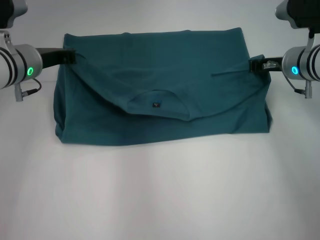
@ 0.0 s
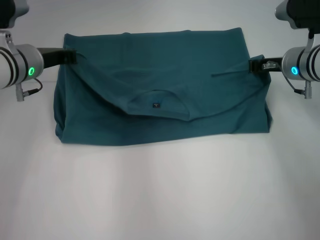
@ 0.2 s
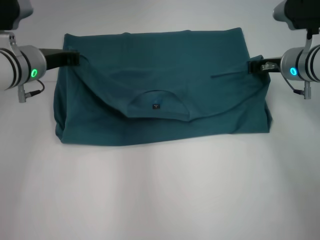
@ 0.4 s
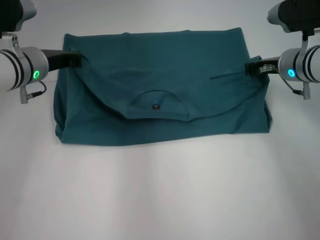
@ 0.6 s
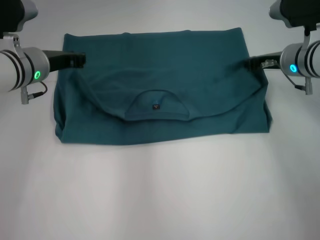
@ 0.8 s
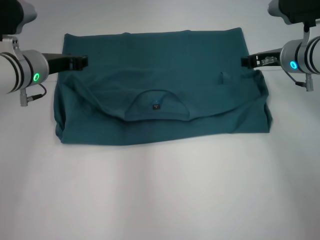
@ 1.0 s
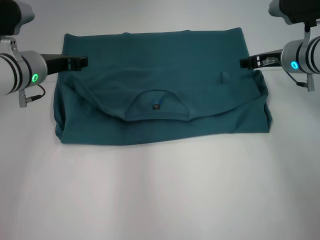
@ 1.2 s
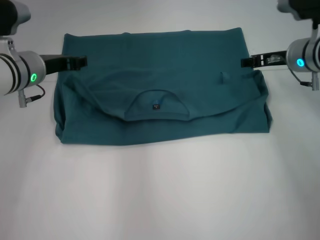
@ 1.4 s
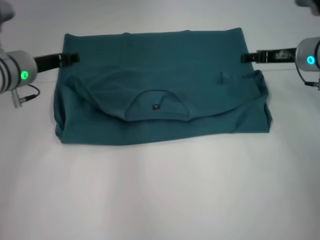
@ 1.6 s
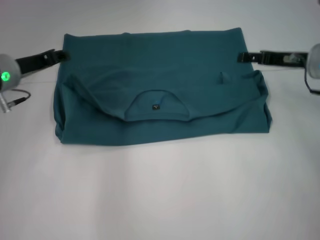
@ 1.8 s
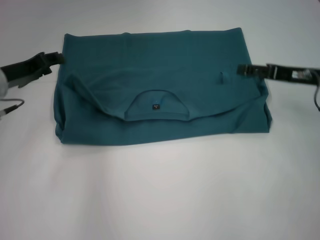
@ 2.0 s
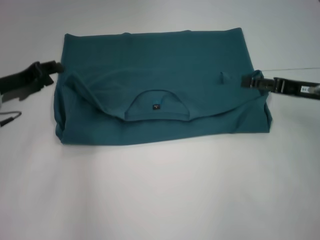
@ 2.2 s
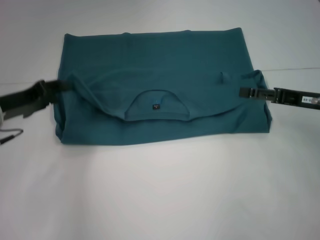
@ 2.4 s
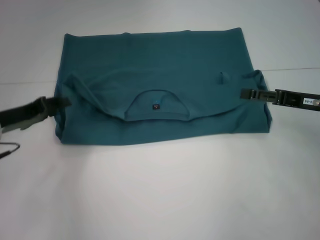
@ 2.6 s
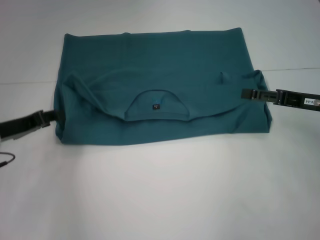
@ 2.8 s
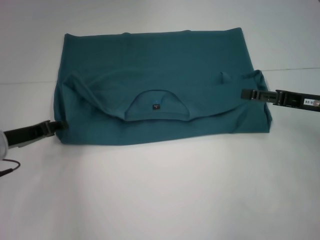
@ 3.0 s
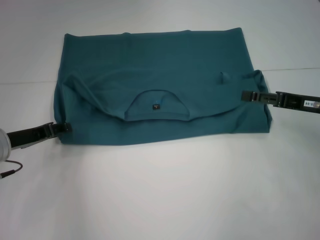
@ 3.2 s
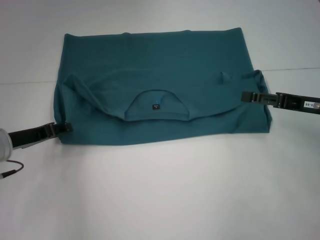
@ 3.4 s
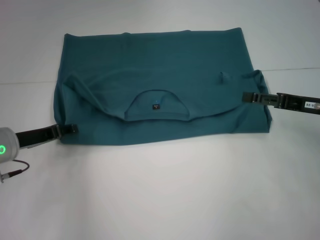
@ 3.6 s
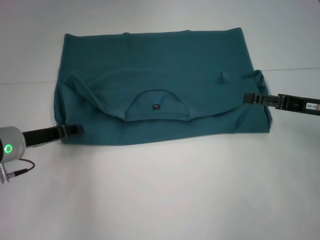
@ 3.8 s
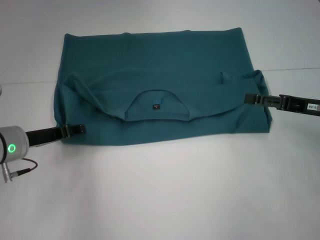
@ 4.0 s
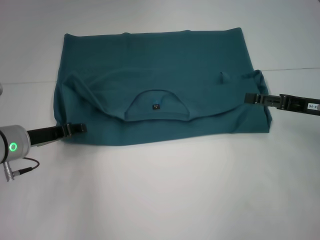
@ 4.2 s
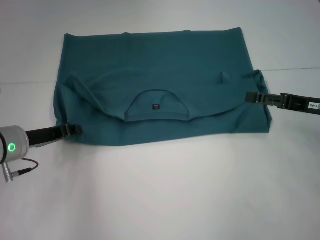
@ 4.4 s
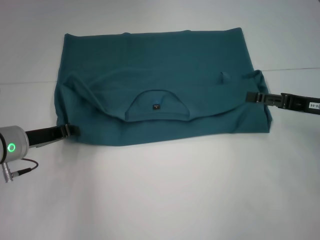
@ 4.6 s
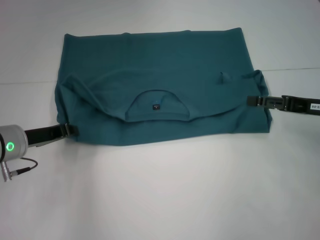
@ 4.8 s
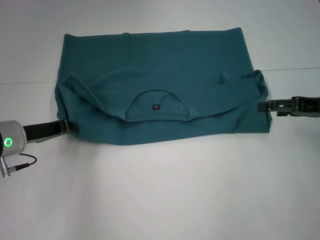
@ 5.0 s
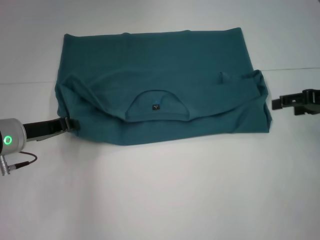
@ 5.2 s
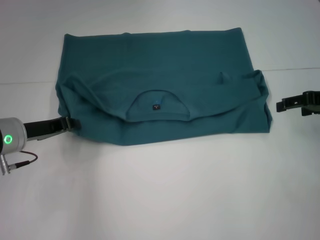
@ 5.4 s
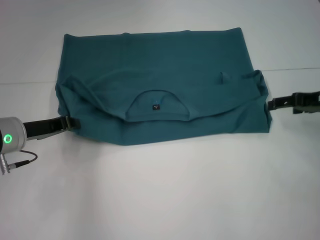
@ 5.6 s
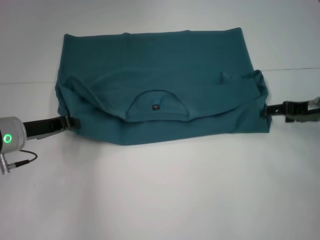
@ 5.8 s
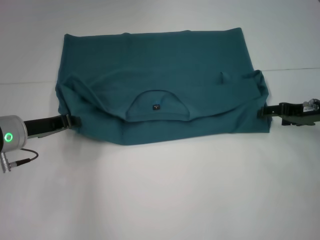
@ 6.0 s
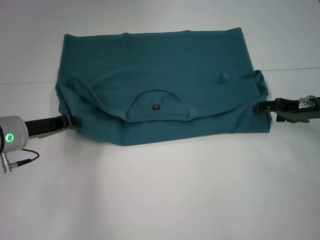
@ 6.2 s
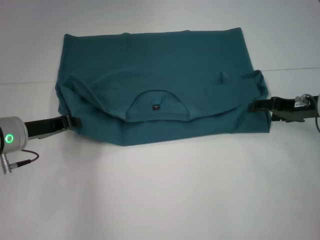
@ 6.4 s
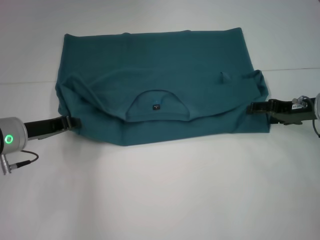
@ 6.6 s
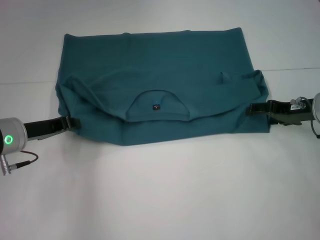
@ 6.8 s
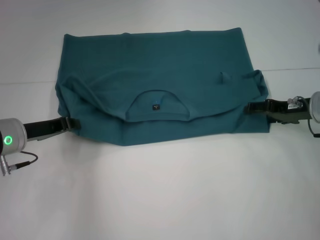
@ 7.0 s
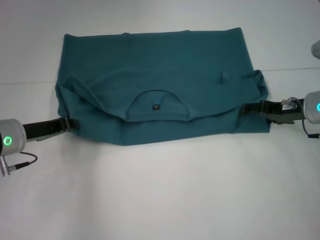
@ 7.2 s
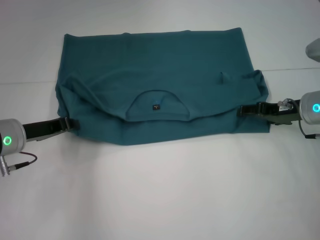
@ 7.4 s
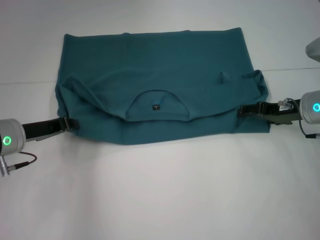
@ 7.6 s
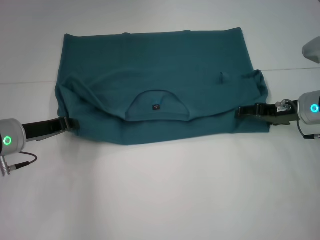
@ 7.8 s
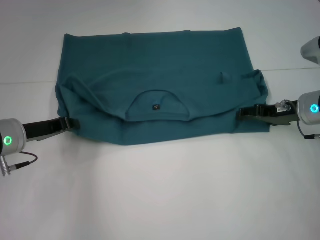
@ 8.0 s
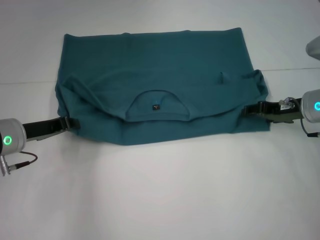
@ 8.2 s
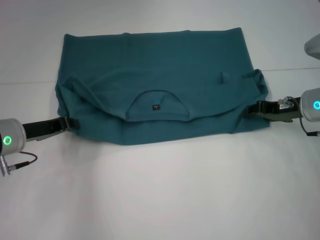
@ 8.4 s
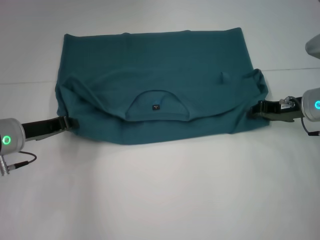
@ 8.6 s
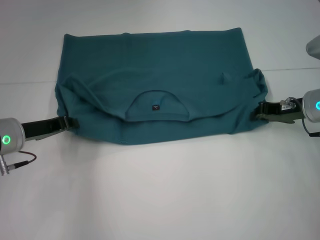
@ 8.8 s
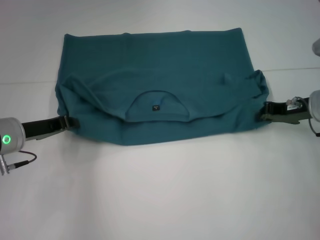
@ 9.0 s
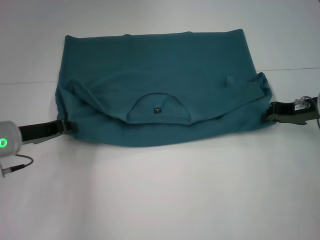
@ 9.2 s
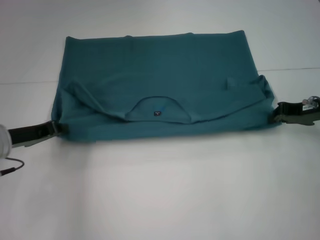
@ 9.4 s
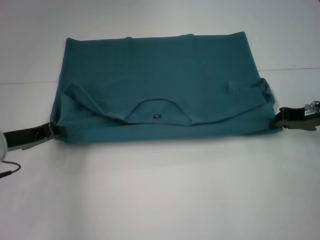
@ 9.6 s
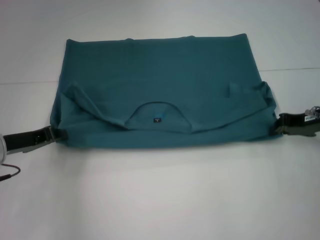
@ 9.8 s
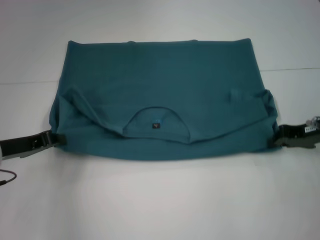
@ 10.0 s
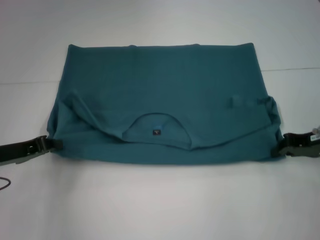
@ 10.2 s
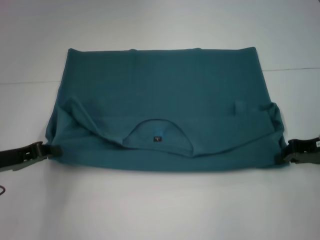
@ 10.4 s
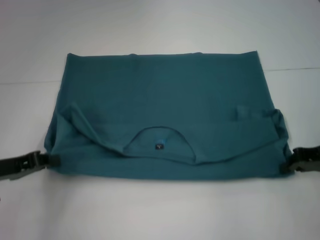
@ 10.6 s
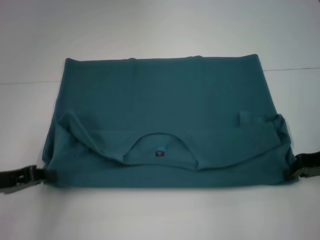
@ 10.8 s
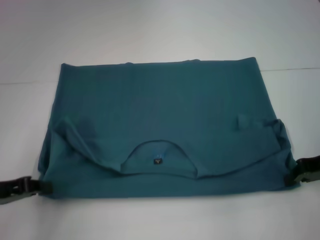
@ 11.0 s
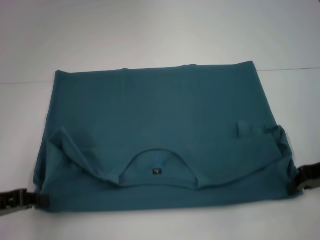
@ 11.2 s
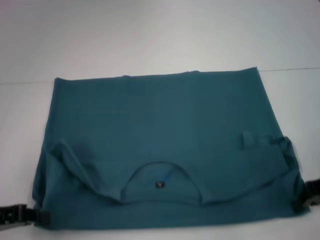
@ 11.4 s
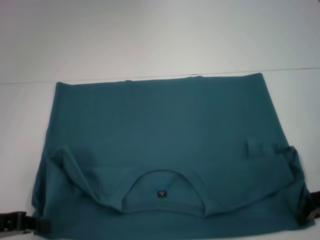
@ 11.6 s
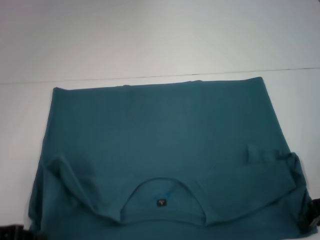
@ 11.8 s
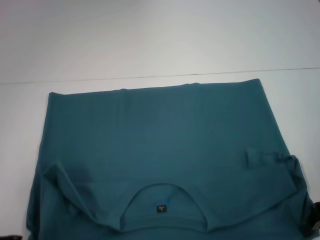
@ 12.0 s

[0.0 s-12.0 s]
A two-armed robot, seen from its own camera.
0.0 to 1.6 s: The right gripper opens up, while the left gripper opens up.
1.6 to 3.0 s: The right gripper is displaced backward by some 10 cm, while the left gripper shifts roughly 15 cm backward, downward and to the left.
3.0 to 4.4 s: The grippers move only a little.
4.4 to 6.0 s: The left gripper closes.
6.0 to 7.6 s: There are only small adjustments of the grippers.
7.6 to 9.0 s: The right gripper closes its fingers.
9.0 to 10.4 s: Both grippers travel together backward, approximately 5 cm.
10.4 to 12.0 s: The left gripper heads backward, covering roughly 10 cm.

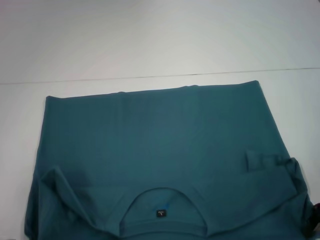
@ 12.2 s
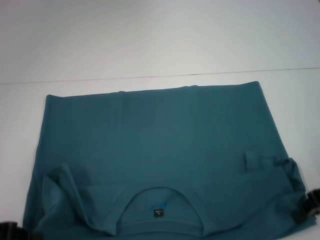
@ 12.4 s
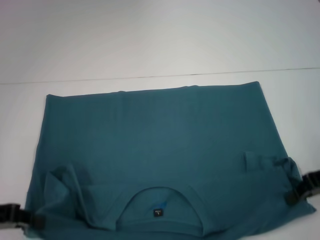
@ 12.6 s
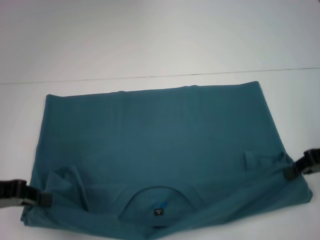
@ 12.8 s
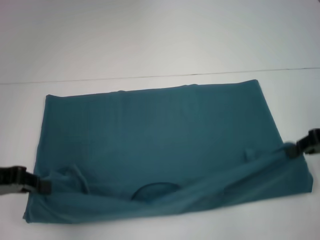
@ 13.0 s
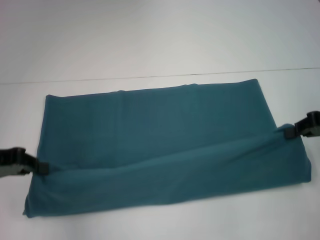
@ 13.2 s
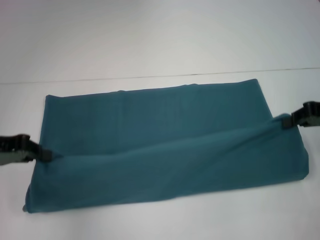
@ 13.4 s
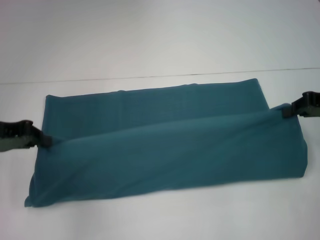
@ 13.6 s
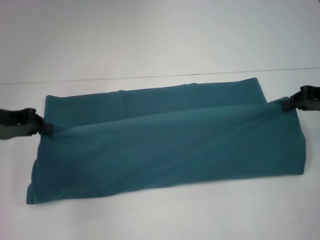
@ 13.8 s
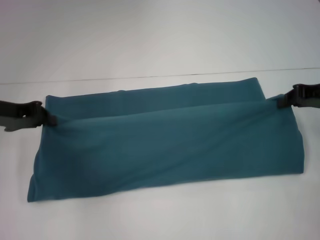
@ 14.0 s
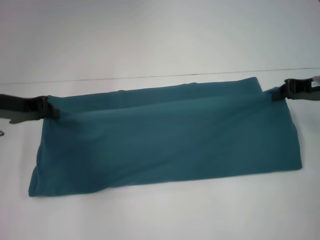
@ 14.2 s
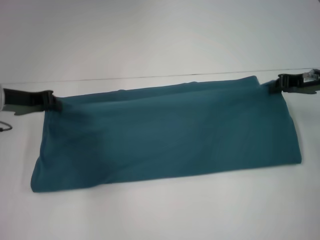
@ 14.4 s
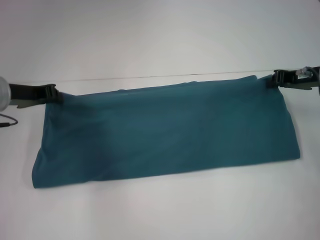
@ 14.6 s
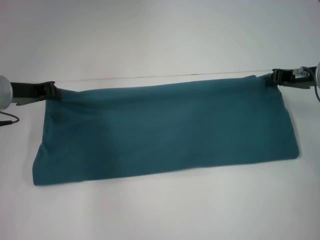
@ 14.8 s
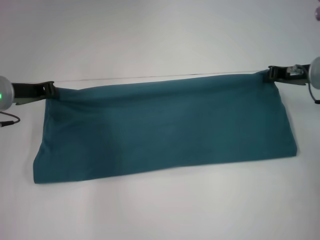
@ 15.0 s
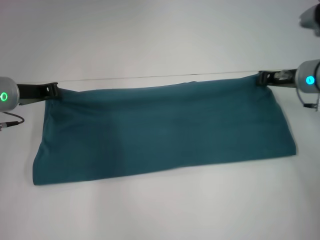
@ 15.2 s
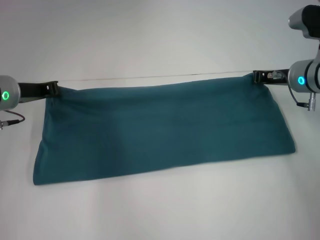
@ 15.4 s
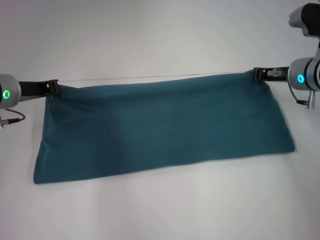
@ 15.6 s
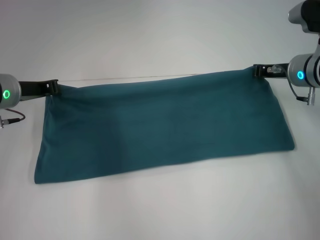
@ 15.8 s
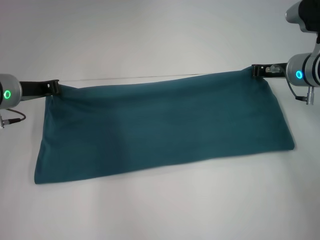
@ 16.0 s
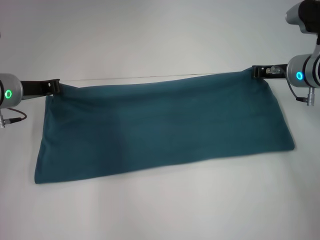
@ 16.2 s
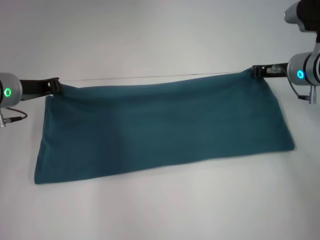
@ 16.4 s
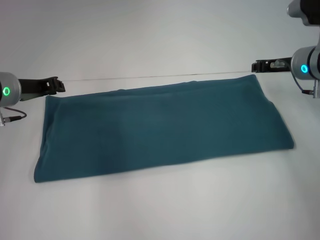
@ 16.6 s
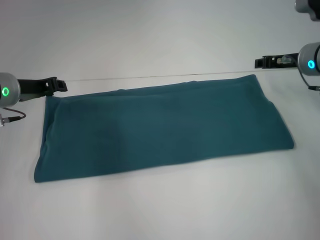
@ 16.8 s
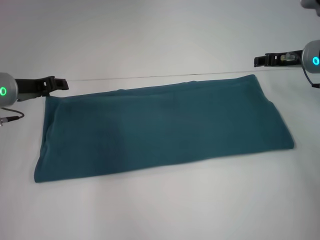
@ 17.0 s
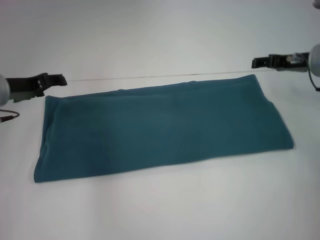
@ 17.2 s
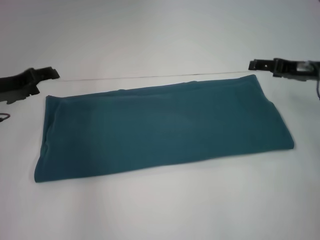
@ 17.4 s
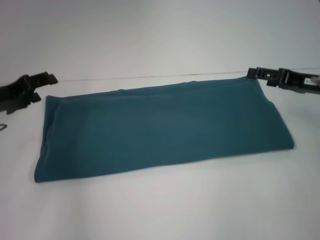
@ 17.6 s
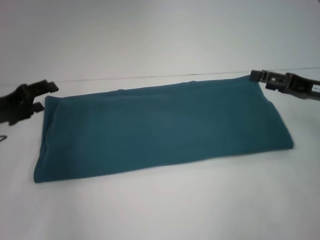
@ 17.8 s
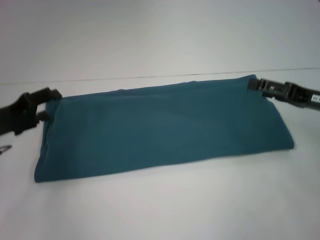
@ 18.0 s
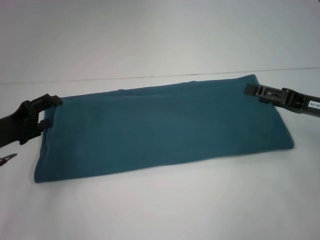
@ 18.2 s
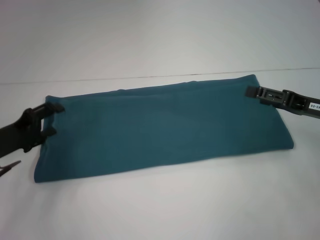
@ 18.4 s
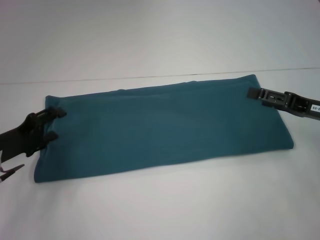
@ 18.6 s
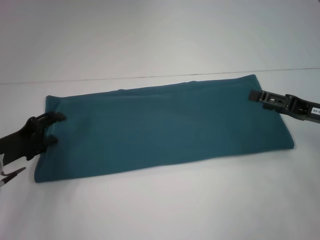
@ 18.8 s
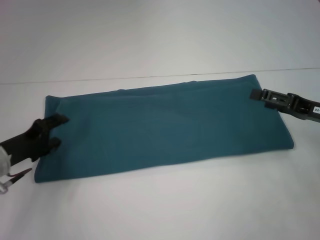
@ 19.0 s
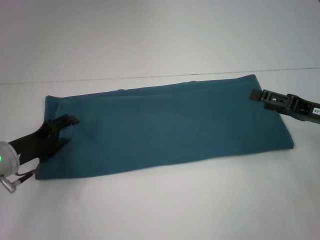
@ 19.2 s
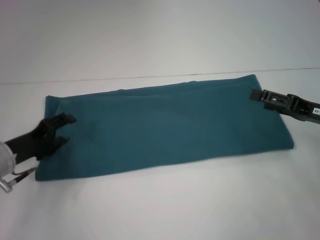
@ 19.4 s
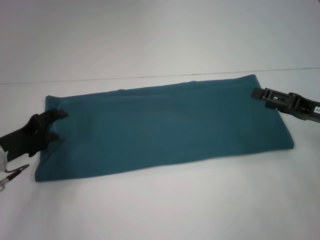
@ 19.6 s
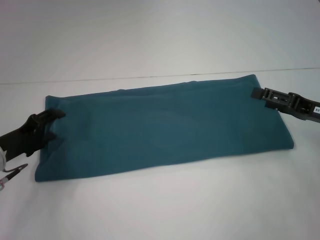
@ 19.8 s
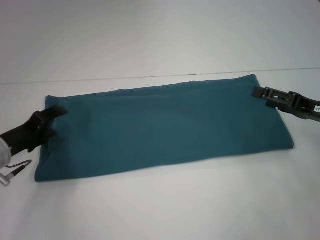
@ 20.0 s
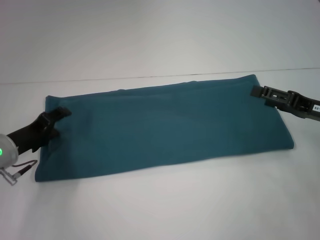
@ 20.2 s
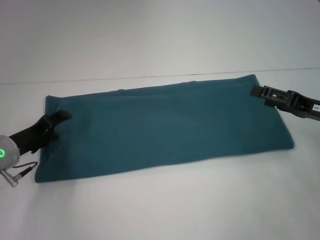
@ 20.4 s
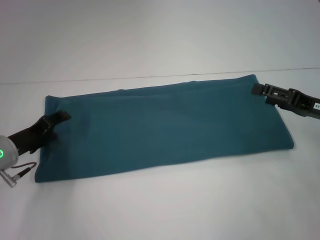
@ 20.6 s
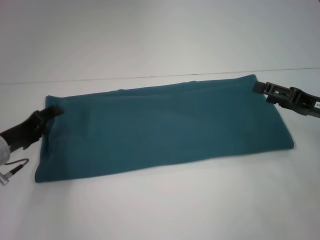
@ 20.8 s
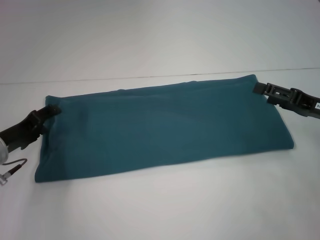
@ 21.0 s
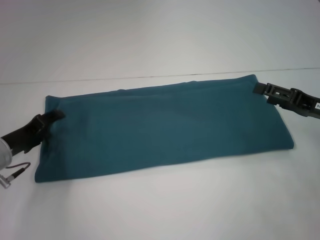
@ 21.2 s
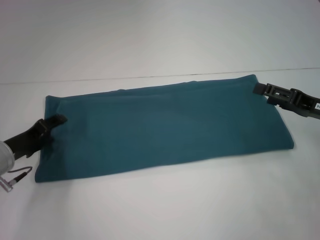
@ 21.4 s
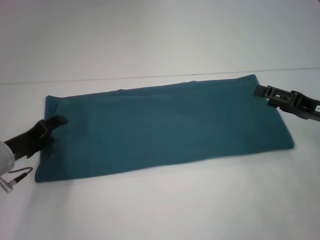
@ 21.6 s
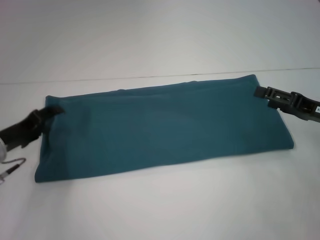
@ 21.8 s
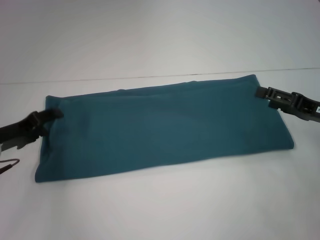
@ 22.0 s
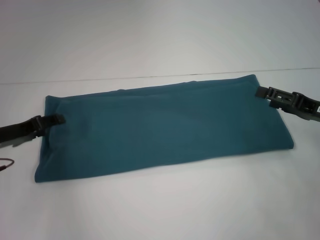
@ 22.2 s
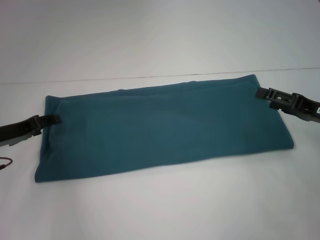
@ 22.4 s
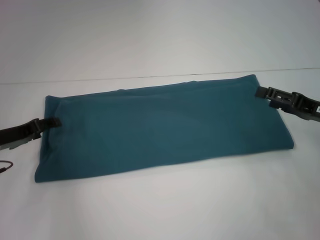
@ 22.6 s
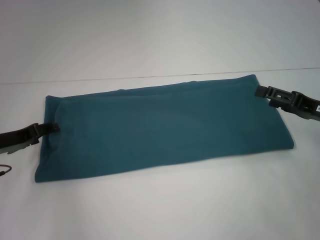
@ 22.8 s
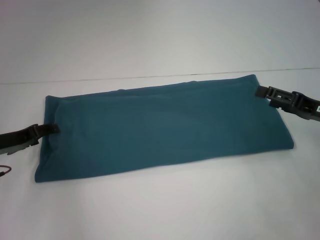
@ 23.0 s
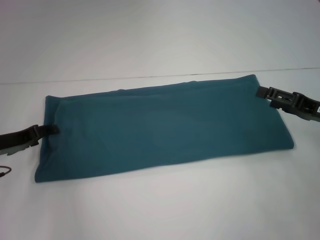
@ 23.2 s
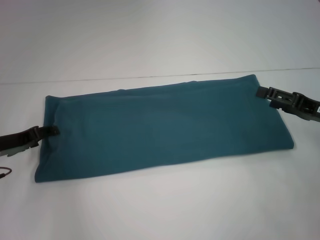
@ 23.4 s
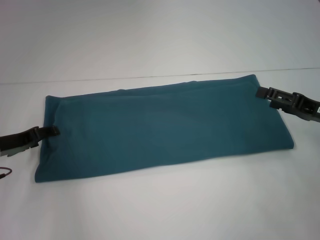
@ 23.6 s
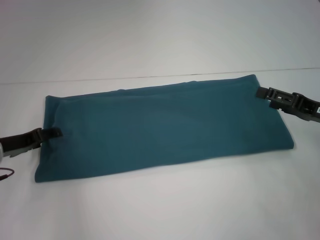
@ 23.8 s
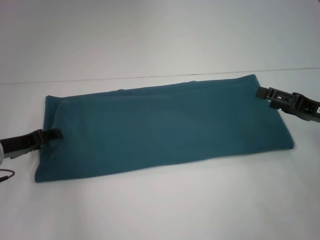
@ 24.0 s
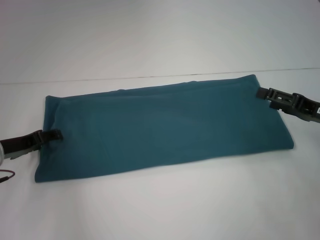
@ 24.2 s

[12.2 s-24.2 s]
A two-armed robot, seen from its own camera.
Step, 12.4 to 16.8 s: Fold the clothes to the right.
12.2 to 13.8 s: The right gripper shifts roughly 10 cm forward and upward; the left gripper shifts some 15 cm forward and upward.
13.8 to 15.2 s: The right gripper moves to the left and forward, about 10 cm; the left gripper shifts roughly 5 cm forward.
15.2 to 16.6 s: The grippers stay close to where they were, moving slightly.
16.6 to 18.2 s: The left gripper travels backward by approximately 10 cm, and opens its fingers, while the right gripper moves backward and to the right, approximately 15 cm, and opens.
18.2 to 21.2 s: The grippers make only small movements.
22.6 to 24.2 s: Neither gripper changes place.
